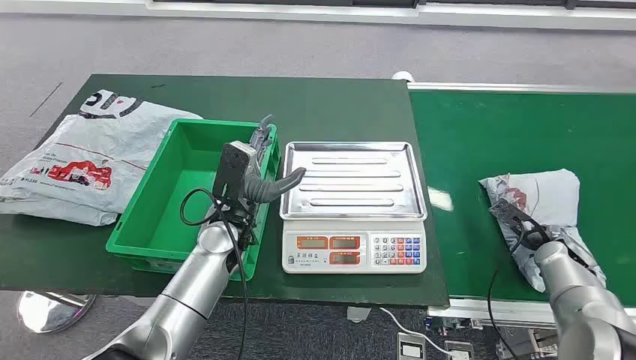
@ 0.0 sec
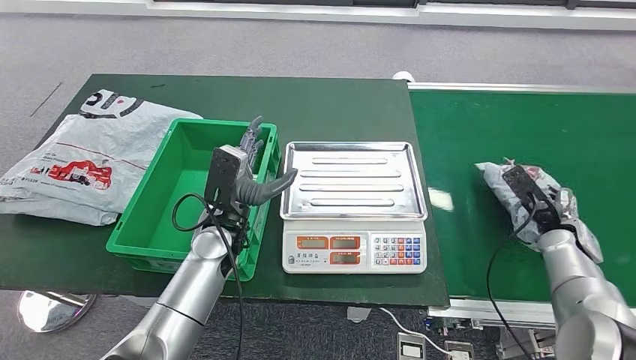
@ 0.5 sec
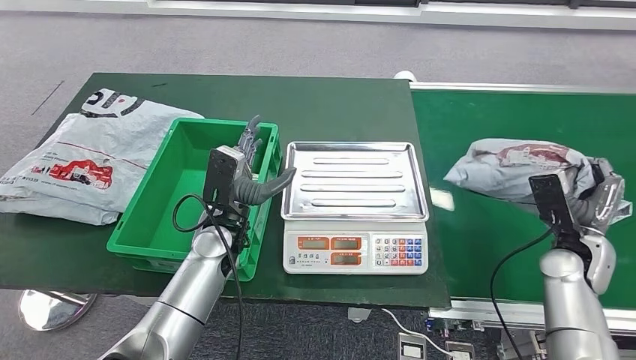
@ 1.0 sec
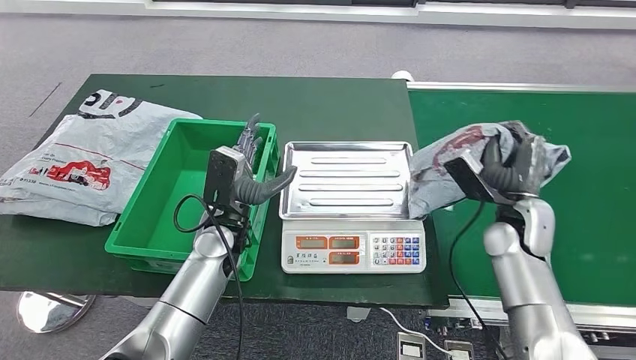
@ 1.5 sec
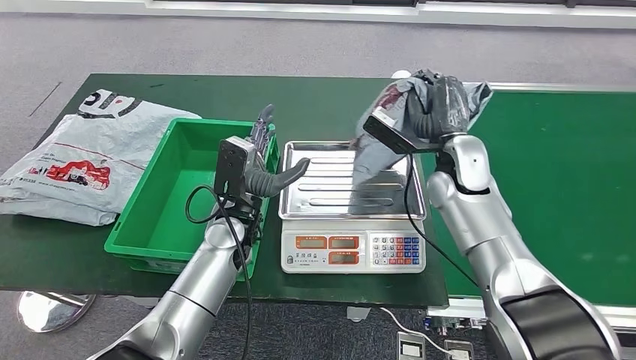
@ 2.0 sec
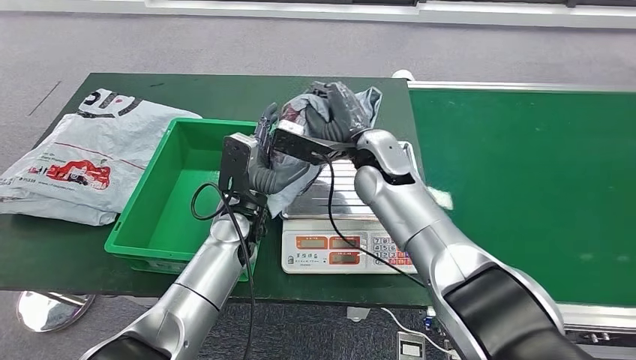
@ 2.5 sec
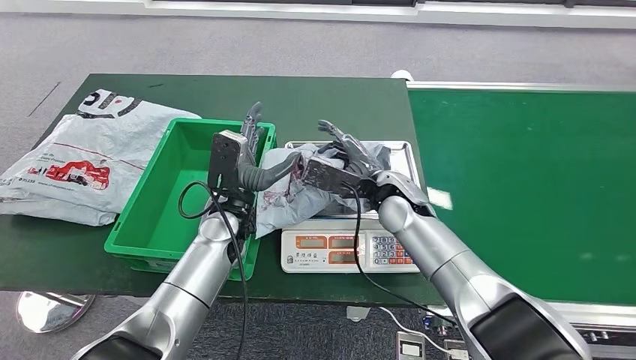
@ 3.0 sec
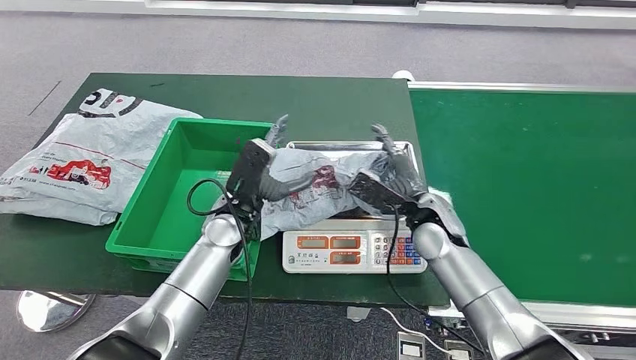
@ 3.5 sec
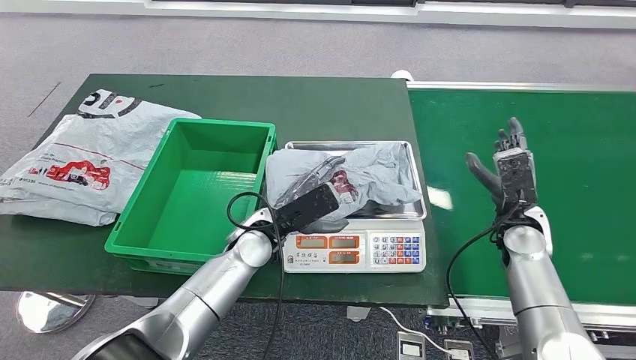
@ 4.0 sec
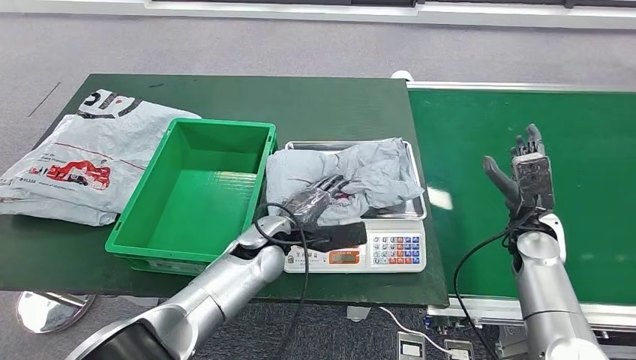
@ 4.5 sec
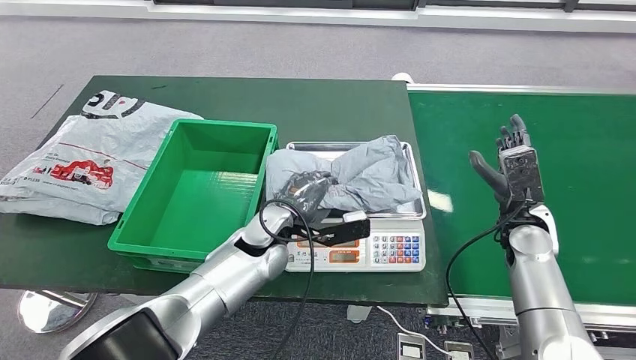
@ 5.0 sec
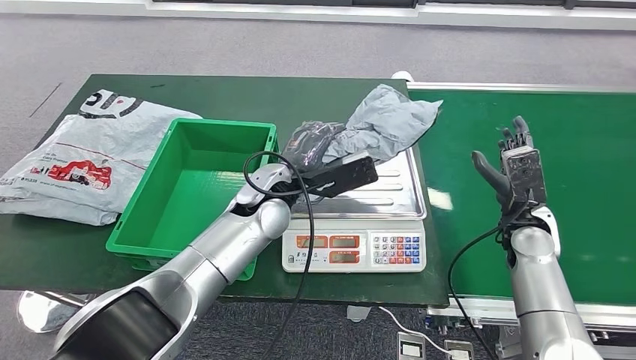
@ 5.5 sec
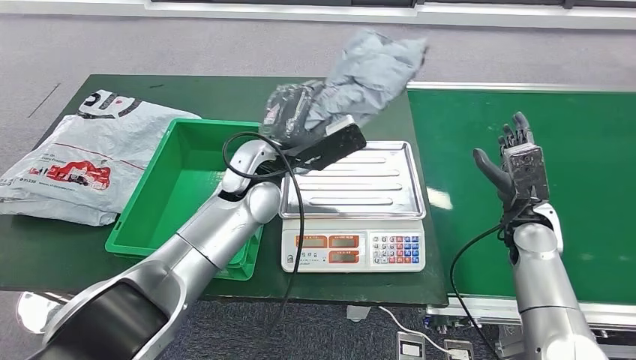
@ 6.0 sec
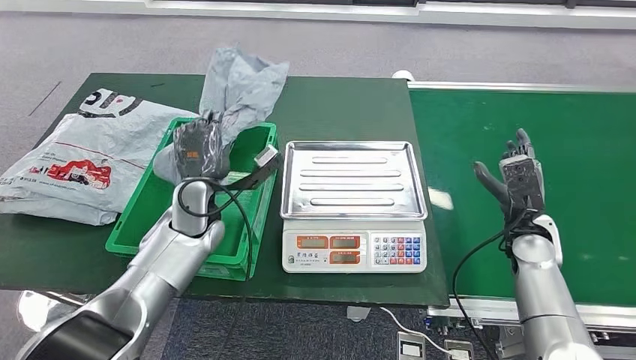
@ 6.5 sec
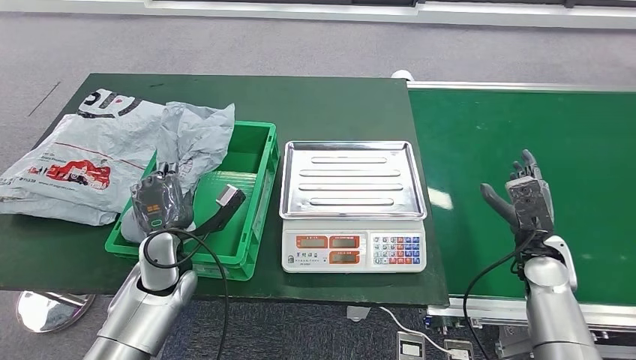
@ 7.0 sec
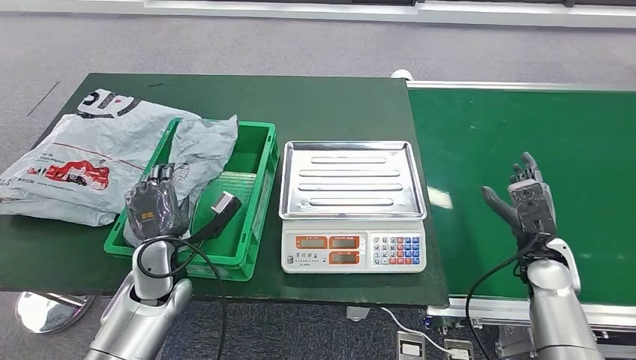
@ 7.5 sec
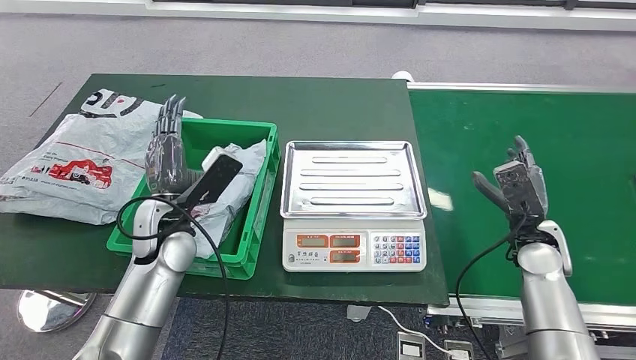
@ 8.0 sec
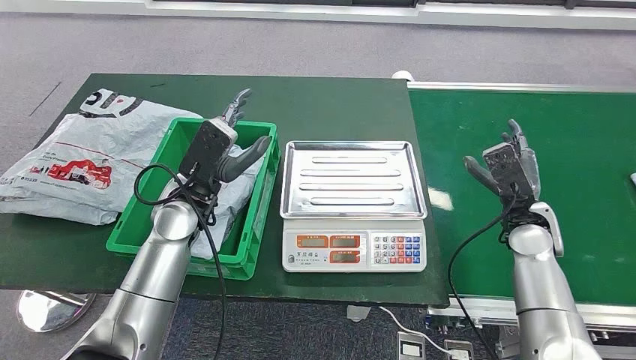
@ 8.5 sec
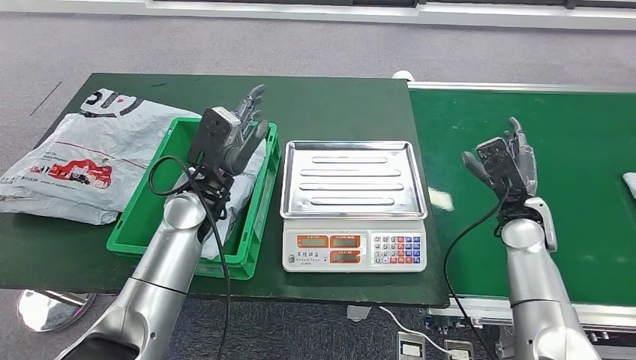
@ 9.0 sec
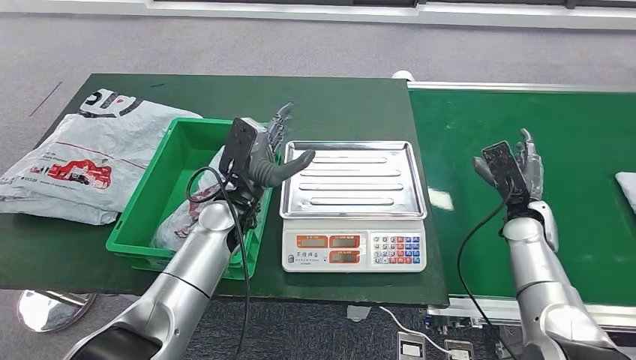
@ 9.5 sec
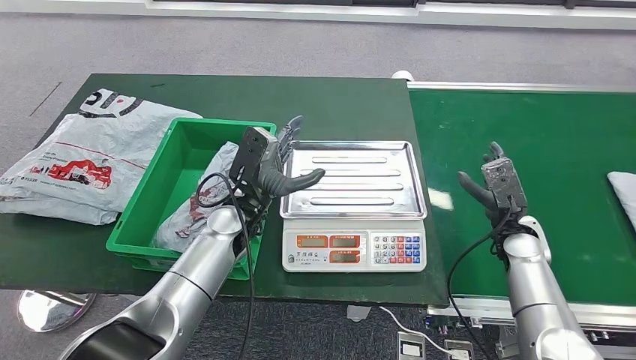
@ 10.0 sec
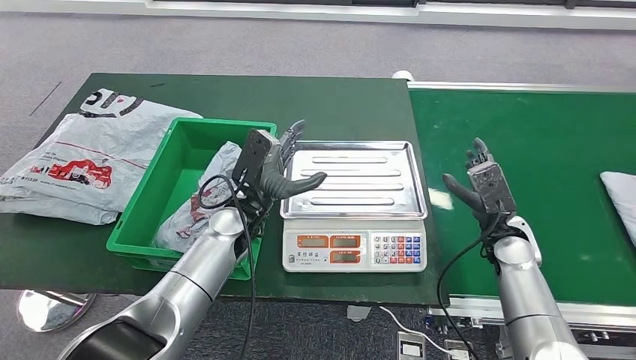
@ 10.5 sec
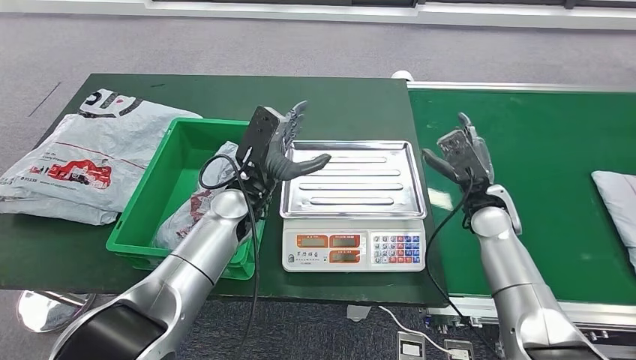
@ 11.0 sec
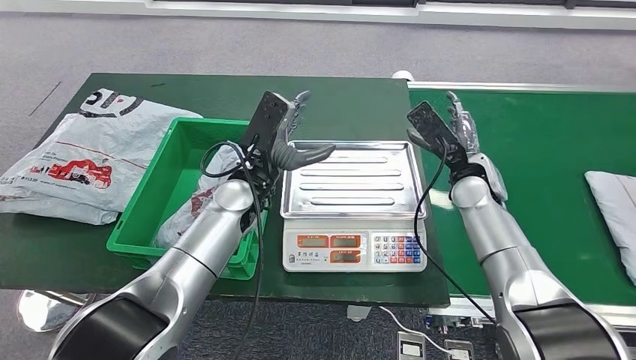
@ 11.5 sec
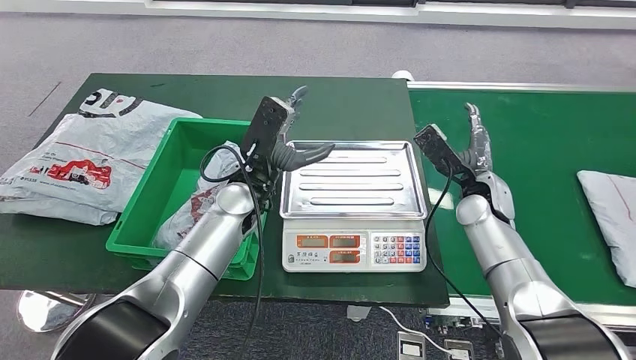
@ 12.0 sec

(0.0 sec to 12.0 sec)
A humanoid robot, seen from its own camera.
Step, 0.0 sec - 1.0 sec: Take the parcel off the conveyor belt.
Step, 1.5 sec - 4.0 sec: Place the parcel onto the inbound machine.
Step, 4.5 sec - 6.0 sec: Pick up the parcel from the inbound machine.
Step, 7.0 sec - 9.0 sec: Put the parcel inside the courier box.
8.0 sec - 10.0 sec: The left hand heads to the right, covering some 10 cm.
10.0 sec - 12.0 sec: The right hand moves to the left, upward and forward, some 10 cm. The left hand changes place by some 5 cm.

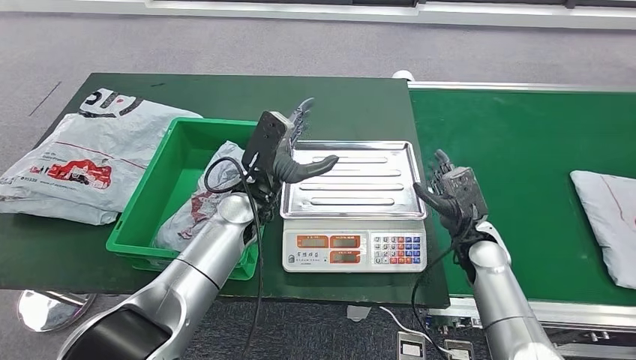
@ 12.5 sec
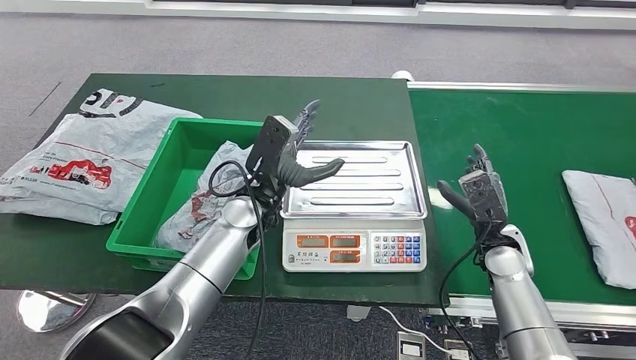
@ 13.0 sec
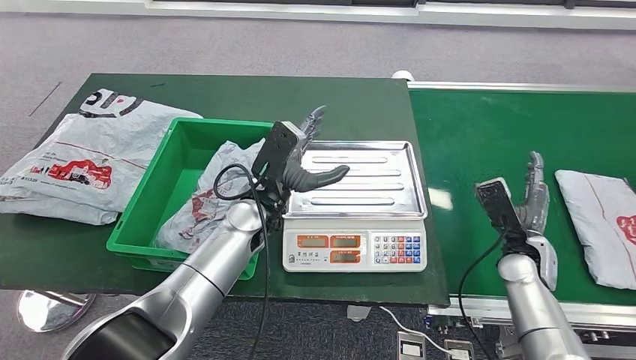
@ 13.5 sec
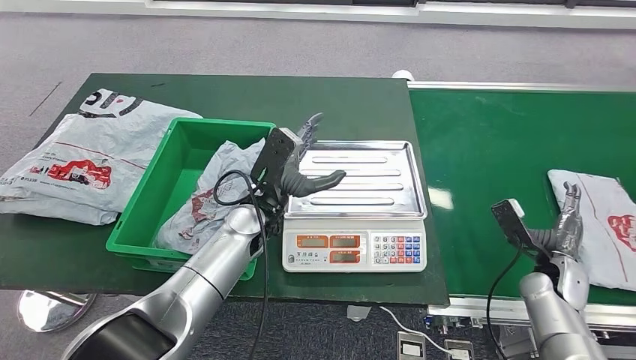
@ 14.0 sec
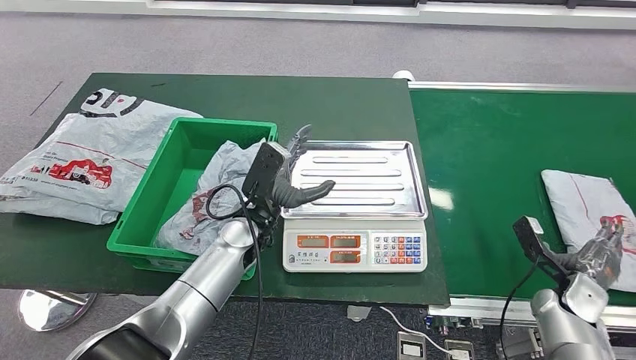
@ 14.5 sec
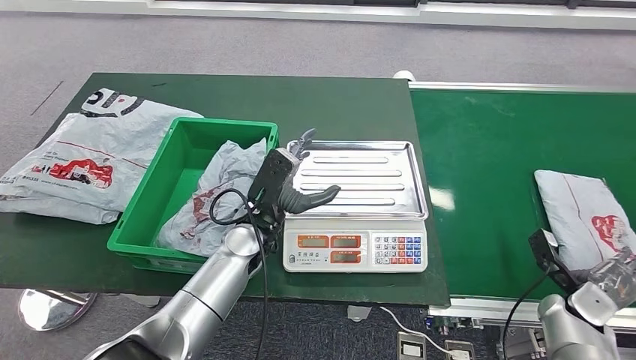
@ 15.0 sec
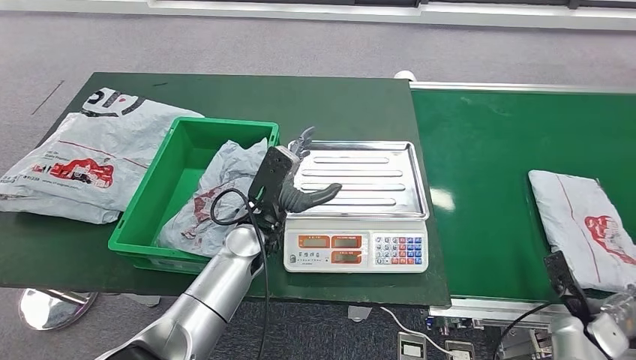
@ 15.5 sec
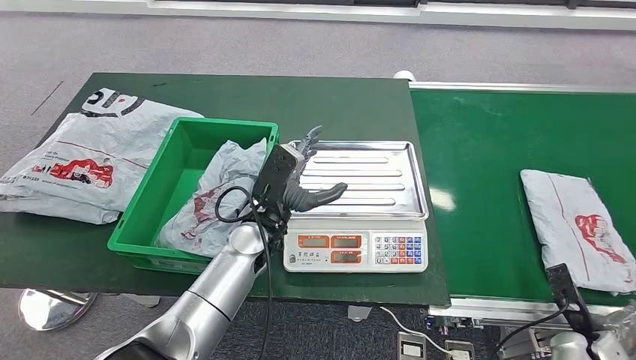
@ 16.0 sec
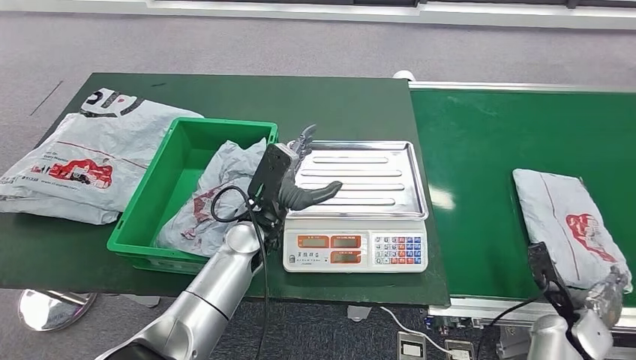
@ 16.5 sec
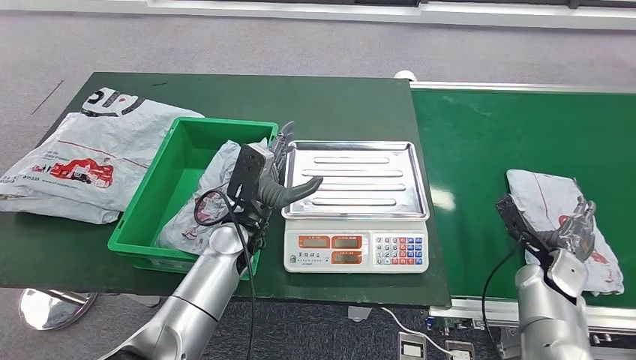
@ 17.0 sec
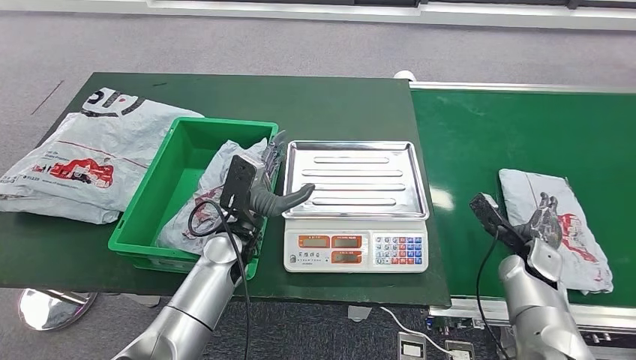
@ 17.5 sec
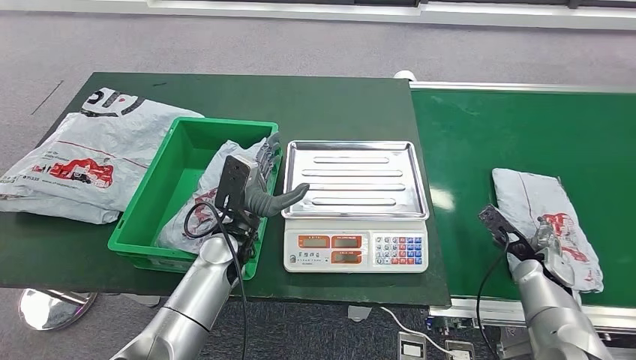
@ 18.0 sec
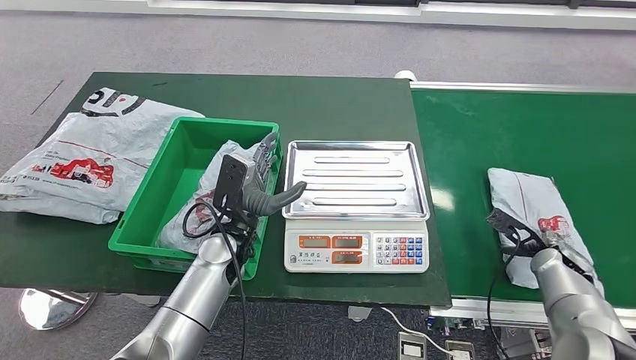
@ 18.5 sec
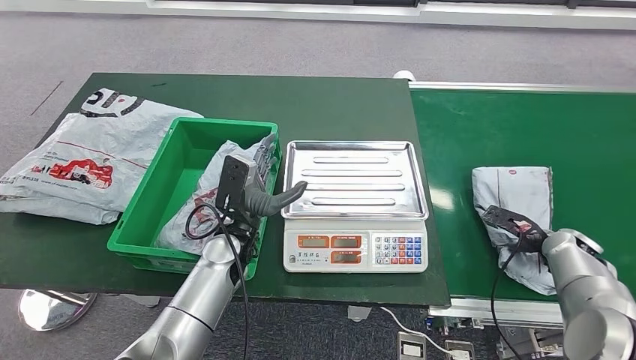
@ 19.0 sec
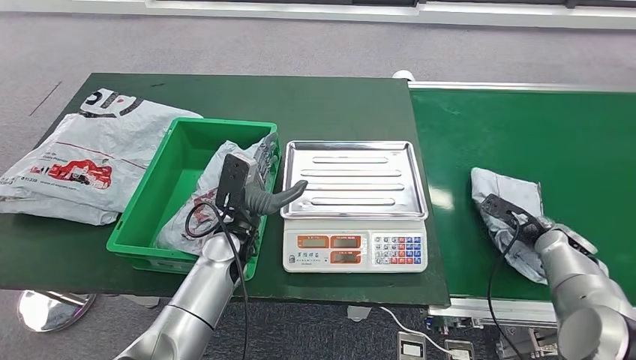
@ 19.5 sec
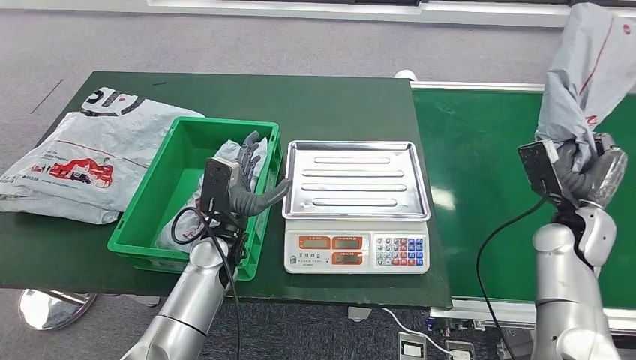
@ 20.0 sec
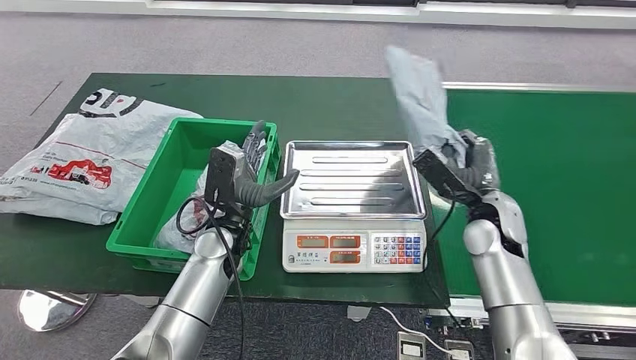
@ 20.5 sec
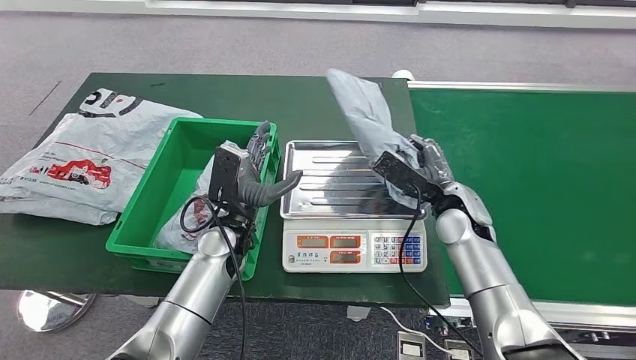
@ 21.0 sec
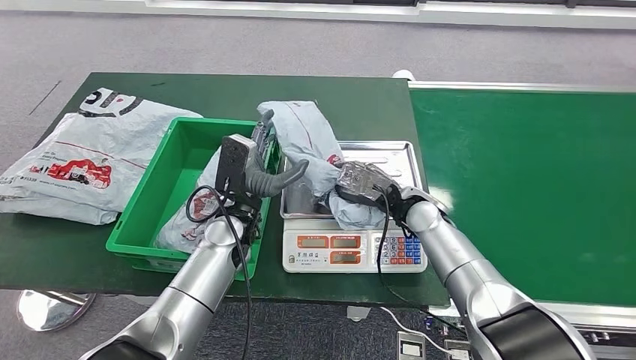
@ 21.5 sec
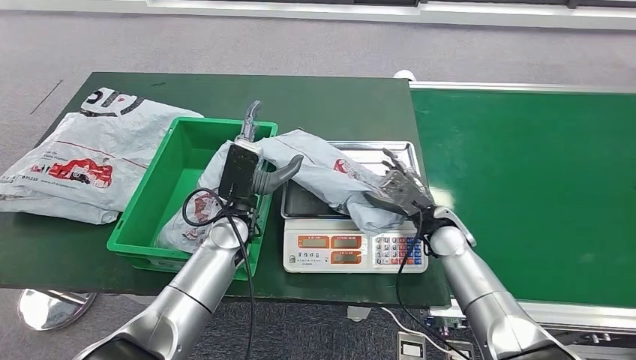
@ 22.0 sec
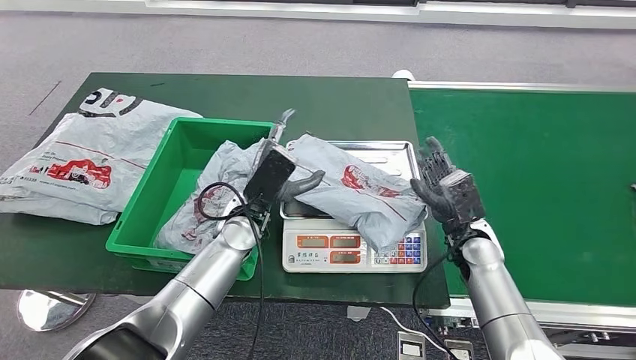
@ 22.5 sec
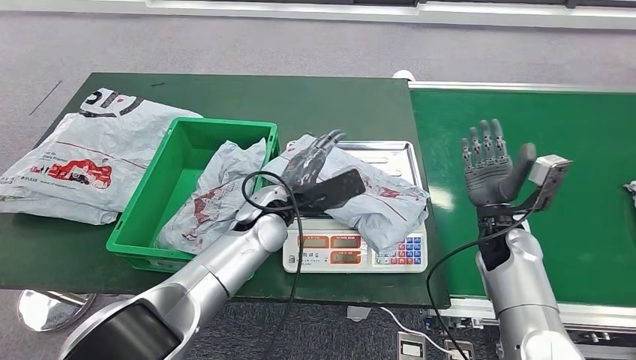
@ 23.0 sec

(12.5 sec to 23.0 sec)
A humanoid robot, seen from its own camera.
Step, 18.0 sec - 19.5 sec: Pick up the parcel from the conveyor belt.
Step, 20.0 sec - 22.0 sec: Place the parcel onto the inbound machine.
12.5 sec - 14.5 sec: The right hand shifts about 20 cm to the right and backward.
14.5 sec - 16.5 sec: The right hand travels backward by approximately 5 cm.
16.5 sec - 19.0 sec: The left hand shifts by roughly 5 cm. Meanwhile the right hand heads forward and upward, covering some 15 cm.
